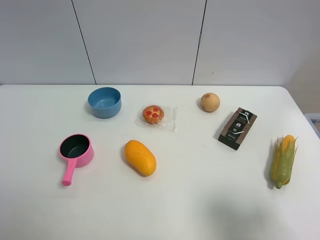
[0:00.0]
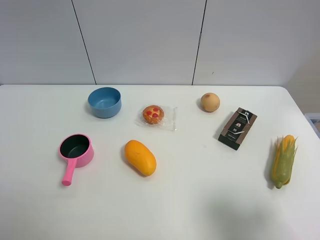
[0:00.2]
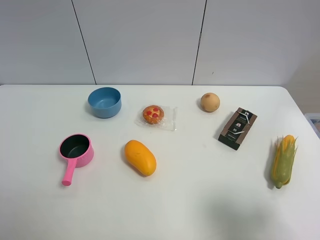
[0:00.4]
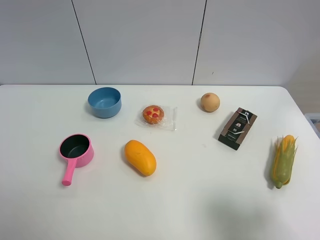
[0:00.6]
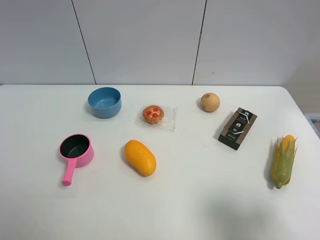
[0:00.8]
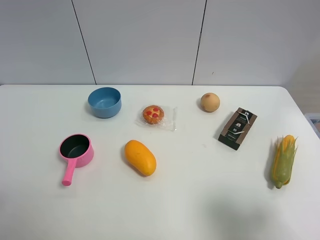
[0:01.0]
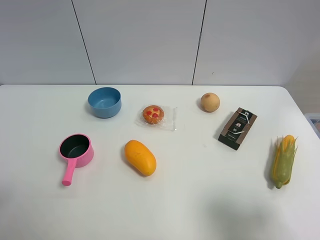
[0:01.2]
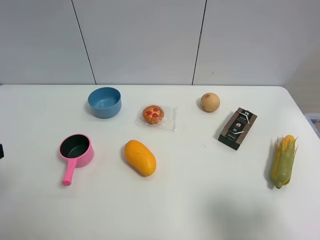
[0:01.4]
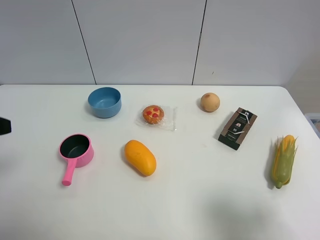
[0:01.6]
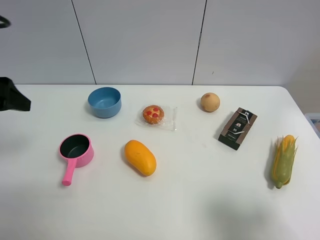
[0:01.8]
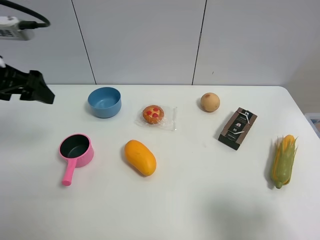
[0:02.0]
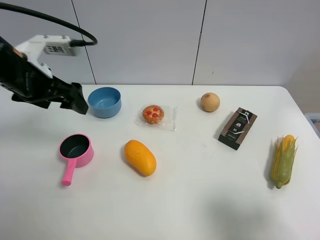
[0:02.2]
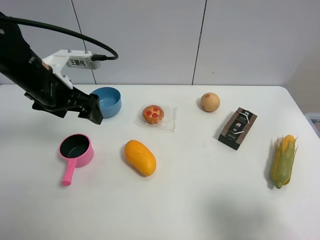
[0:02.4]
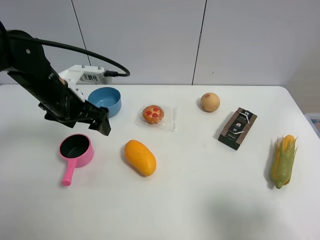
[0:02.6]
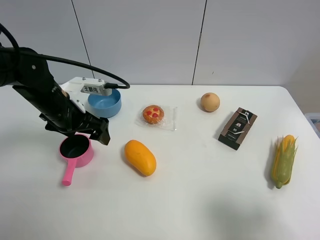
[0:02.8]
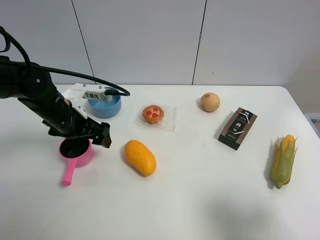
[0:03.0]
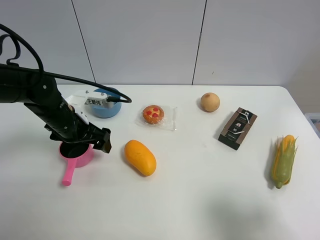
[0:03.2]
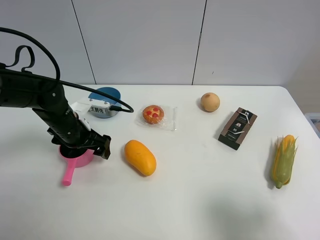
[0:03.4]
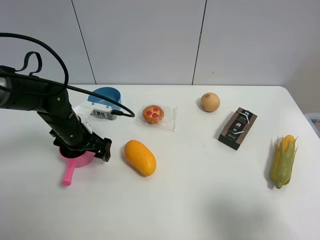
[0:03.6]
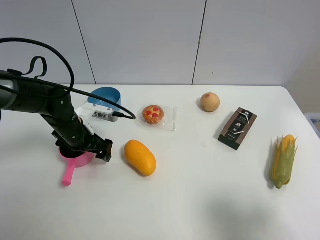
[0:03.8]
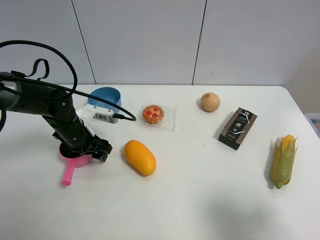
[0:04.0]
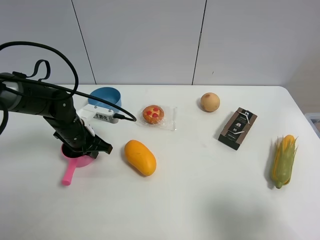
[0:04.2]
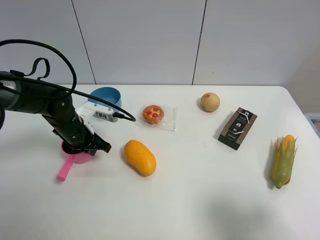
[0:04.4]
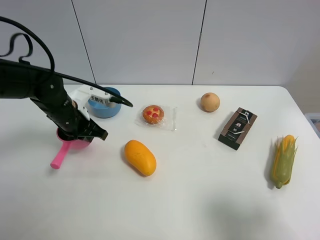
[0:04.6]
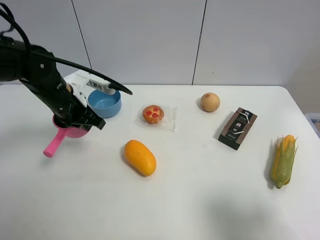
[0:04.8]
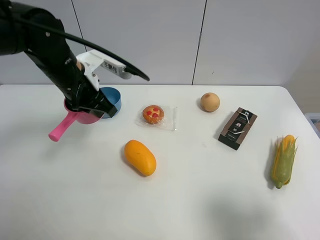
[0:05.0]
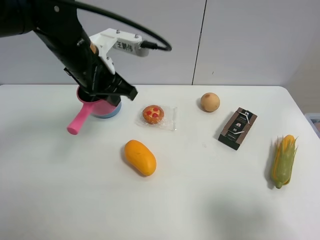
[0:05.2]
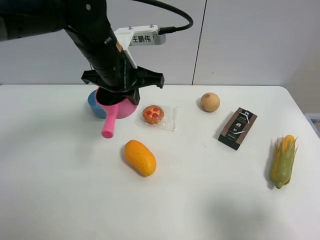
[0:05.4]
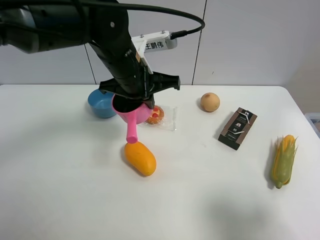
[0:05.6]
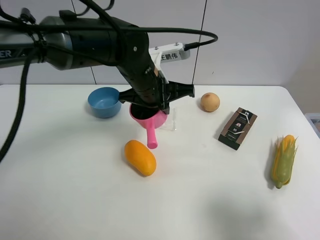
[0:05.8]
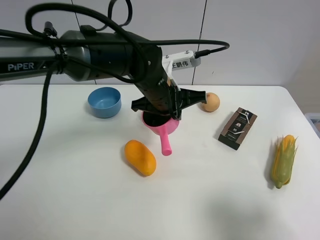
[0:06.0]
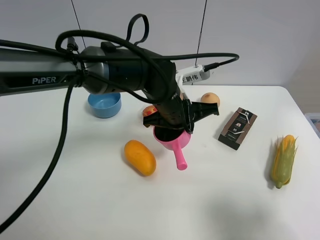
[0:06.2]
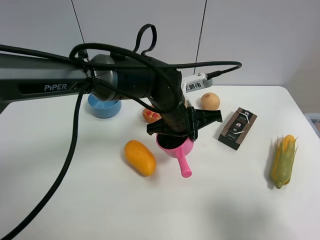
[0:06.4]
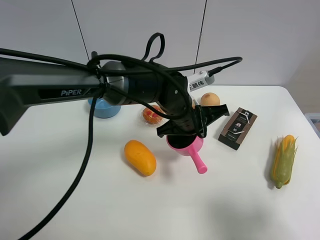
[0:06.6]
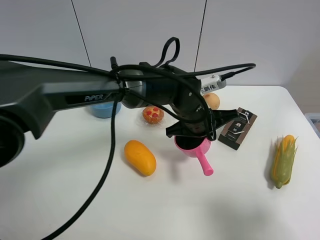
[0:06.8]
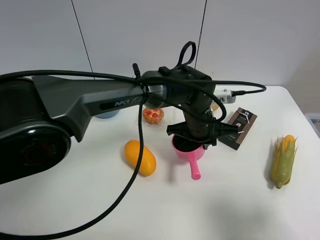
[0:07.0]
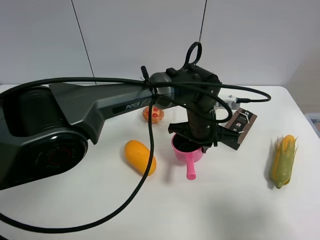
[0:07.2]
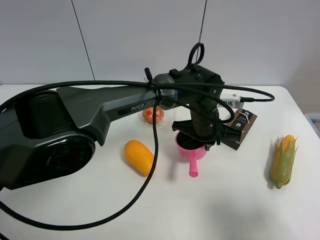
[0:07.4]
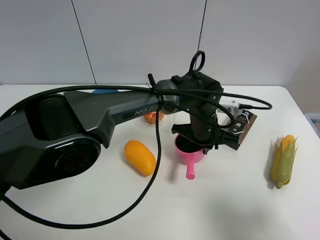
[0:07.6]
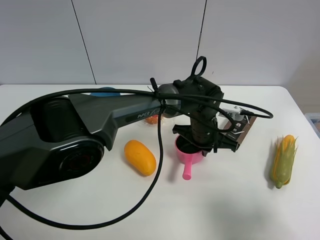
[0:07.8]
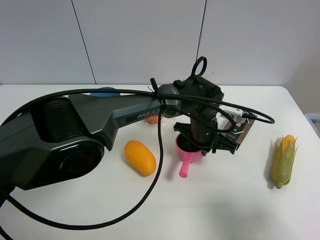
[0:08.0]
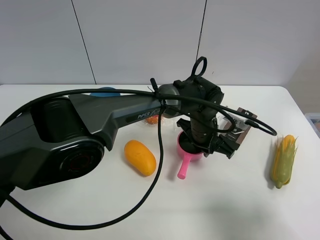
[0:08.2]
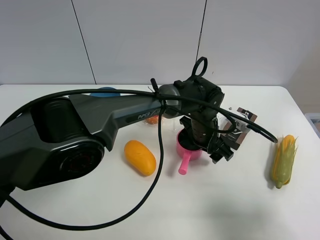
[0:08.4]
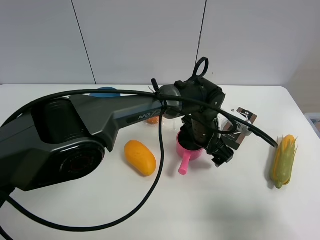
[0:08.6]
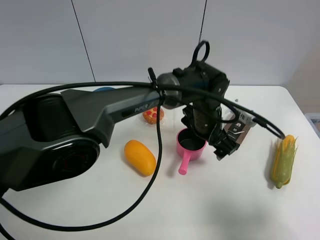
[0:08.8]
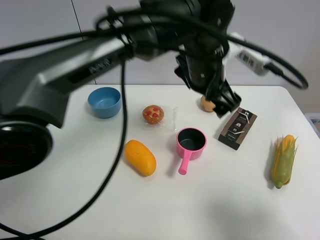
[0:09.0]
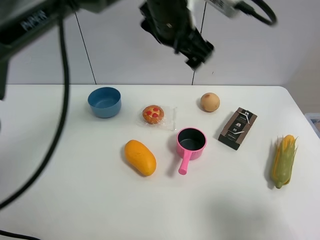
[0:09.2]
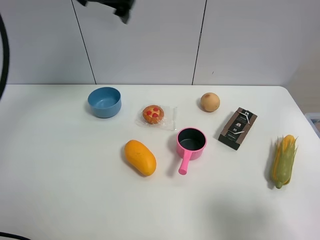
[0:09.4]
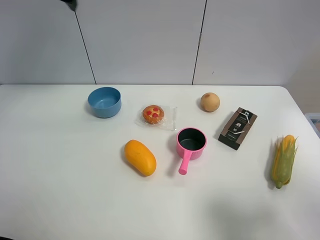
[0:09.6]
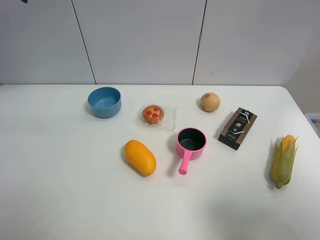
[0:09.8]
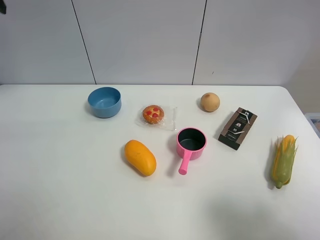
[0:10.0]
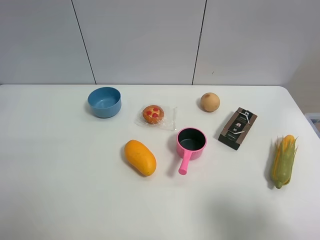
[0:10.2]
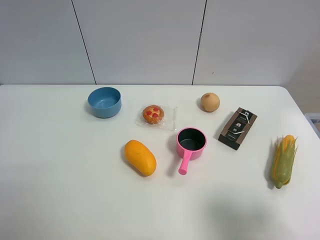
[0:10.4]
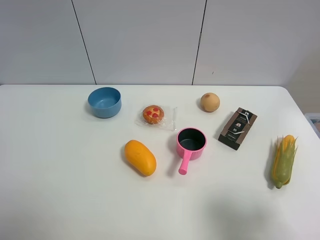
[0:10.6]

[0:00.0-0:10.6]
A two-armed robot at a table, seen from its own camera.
Task of the whole recording: the gripper move the object.
Step, 0:00.0 to 0:04.2: Grasp the pink pot with the left gripper.
Step, 0:04.4 to 0:08.8: Place the pink pot on the table with the left gripper.
0:01.6 to 0:03.0: The left gripper is displaced forward, downward and to the right by roughly 25 cm.
0:03.0 to 0:04.6: The left gripper closes.
0:04.6 to 0:06.0: The left gripper is displaced to the right by approximately 20 cm.
0:06.0 to 0:07.6: The left gripper goes some 15 cm to the right and downward.
0:07.6 to 0:09.0: The left gripper travels upward by some 20 cm, and opens its fingers.
0:09.0 to 0:10.6: The left gripper is displaced to the left and backward by some 50 cm.

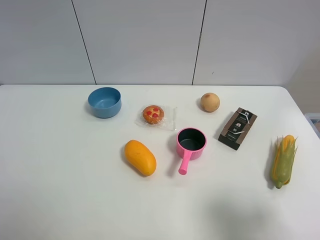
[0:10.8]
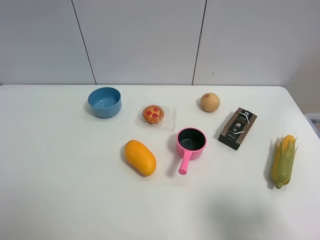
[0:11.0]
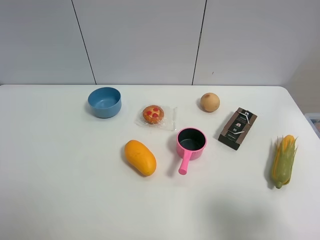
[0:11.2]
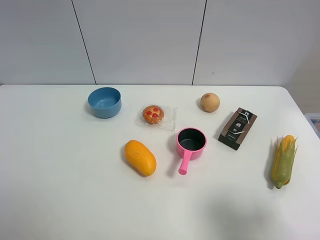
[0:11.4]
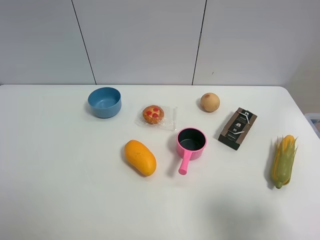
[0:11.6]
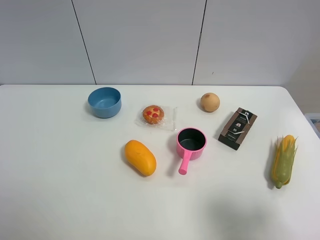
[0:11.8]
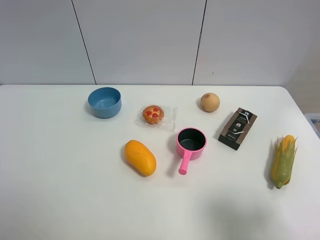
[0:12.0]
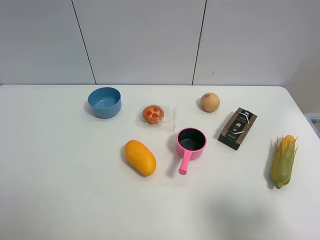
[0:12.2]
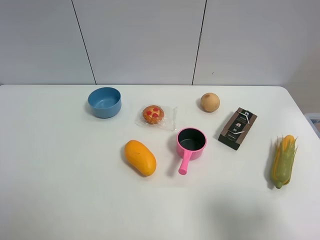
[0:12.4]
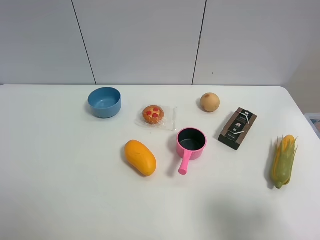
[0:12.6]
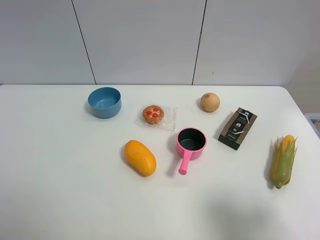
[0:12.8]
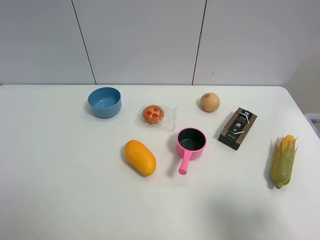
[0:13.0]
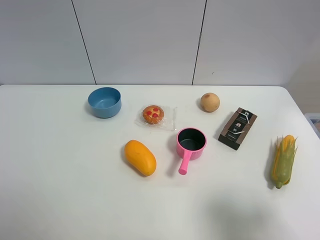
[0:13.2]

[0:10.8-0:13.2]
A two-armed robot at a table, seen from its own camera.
Task of the whole recording: the gripper move the object.
0:12.0 to 0:13.2: Neither gripper changes place.

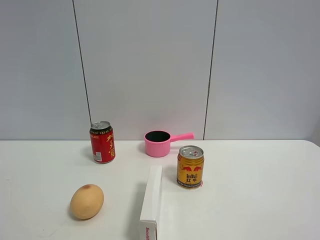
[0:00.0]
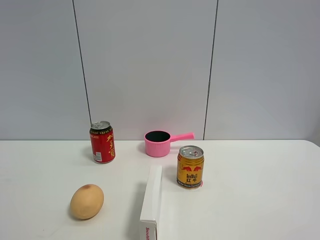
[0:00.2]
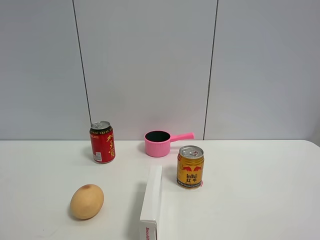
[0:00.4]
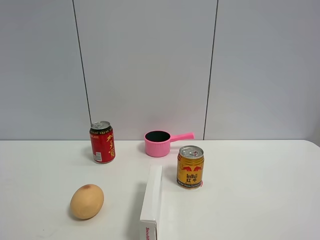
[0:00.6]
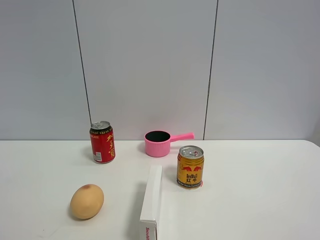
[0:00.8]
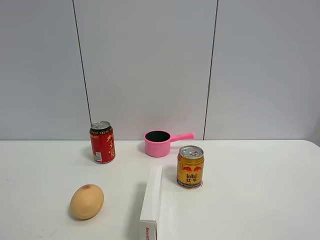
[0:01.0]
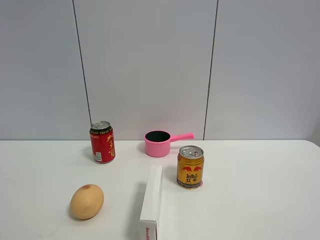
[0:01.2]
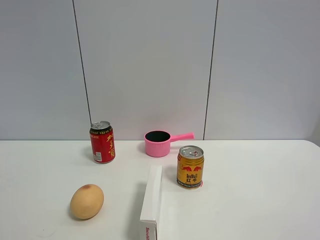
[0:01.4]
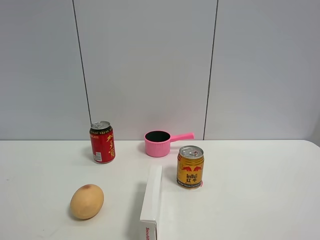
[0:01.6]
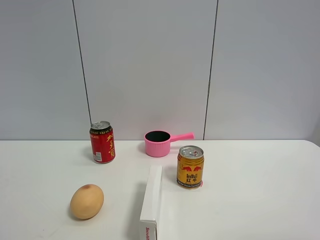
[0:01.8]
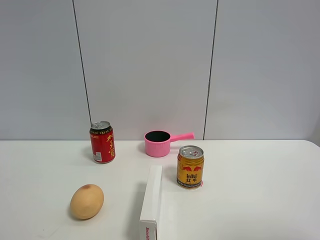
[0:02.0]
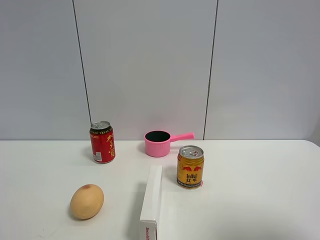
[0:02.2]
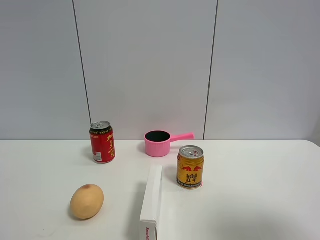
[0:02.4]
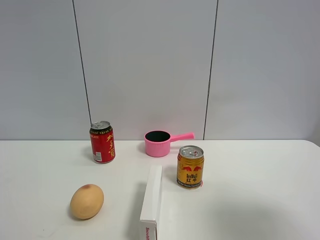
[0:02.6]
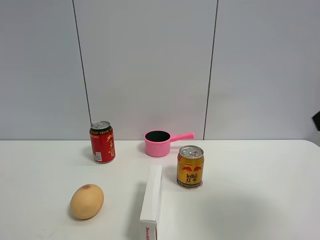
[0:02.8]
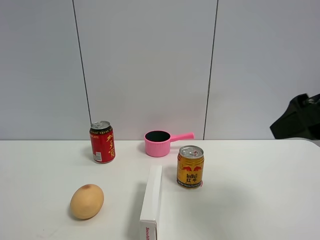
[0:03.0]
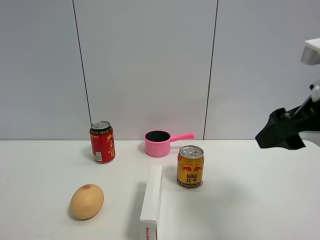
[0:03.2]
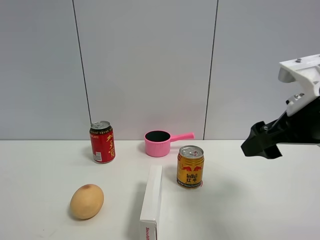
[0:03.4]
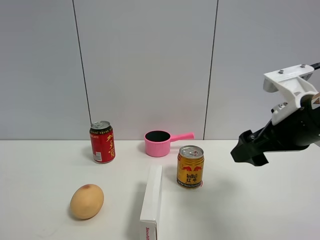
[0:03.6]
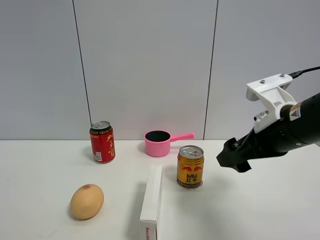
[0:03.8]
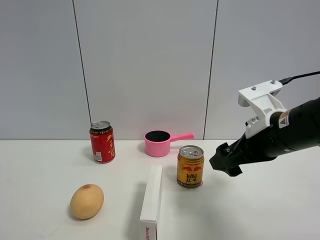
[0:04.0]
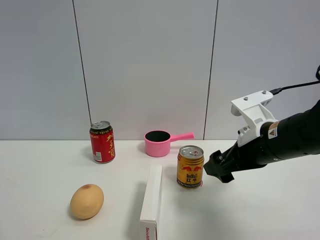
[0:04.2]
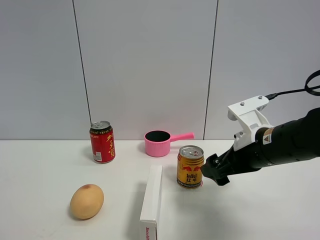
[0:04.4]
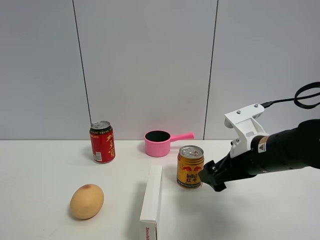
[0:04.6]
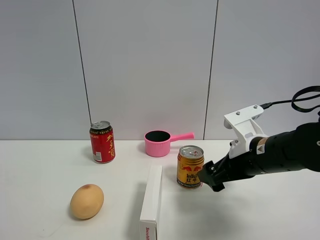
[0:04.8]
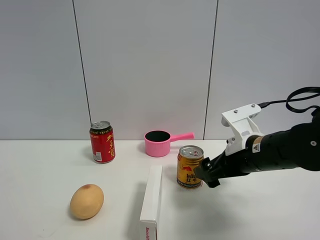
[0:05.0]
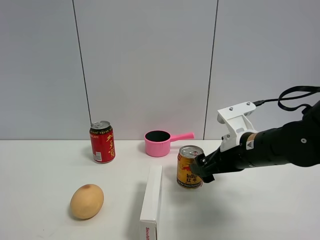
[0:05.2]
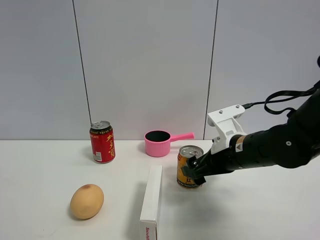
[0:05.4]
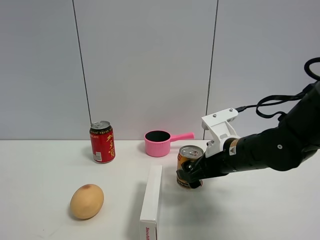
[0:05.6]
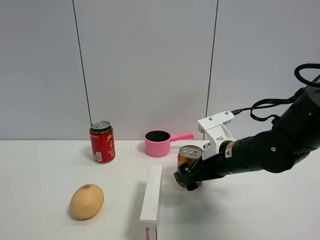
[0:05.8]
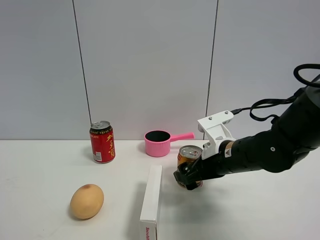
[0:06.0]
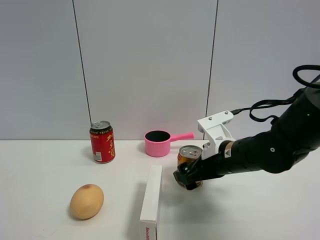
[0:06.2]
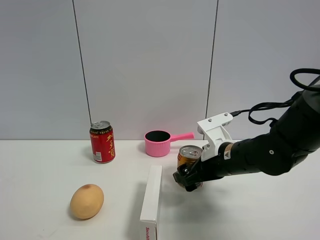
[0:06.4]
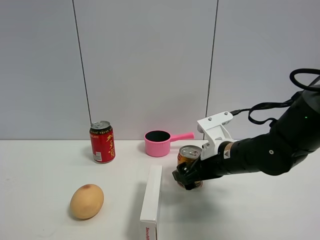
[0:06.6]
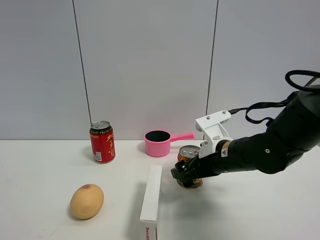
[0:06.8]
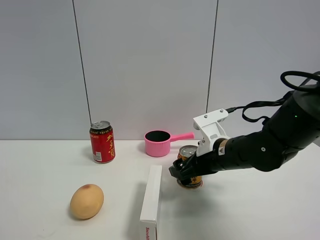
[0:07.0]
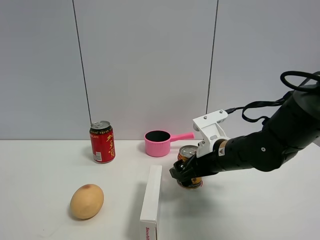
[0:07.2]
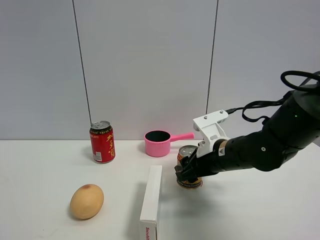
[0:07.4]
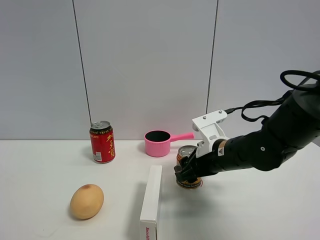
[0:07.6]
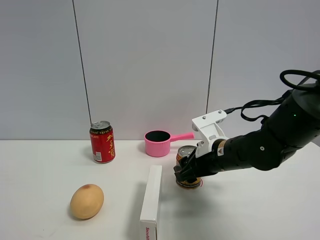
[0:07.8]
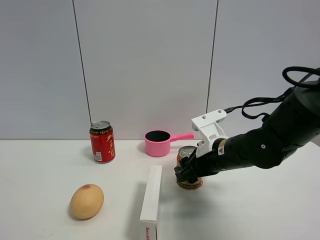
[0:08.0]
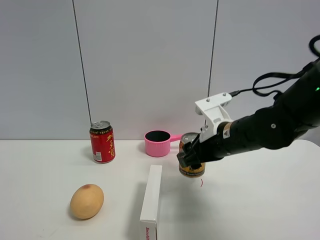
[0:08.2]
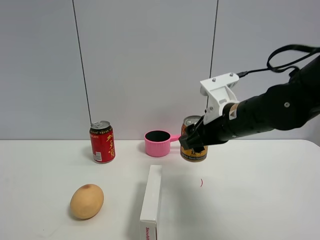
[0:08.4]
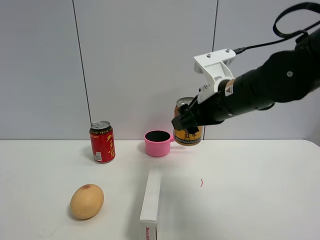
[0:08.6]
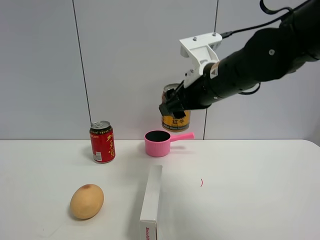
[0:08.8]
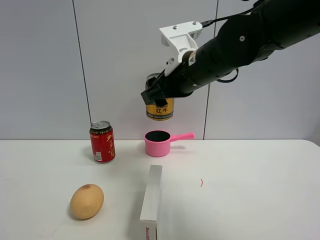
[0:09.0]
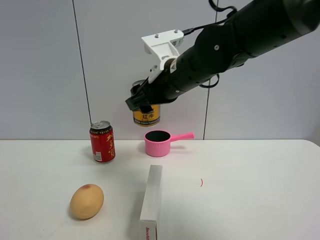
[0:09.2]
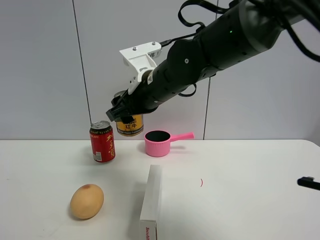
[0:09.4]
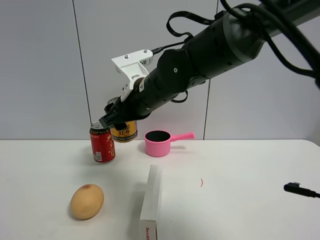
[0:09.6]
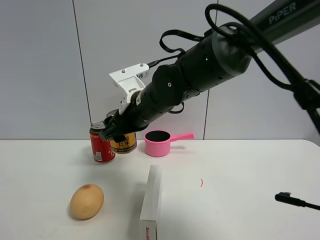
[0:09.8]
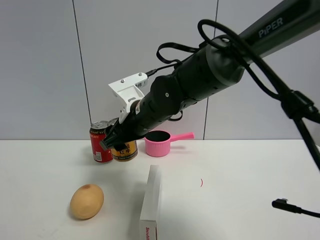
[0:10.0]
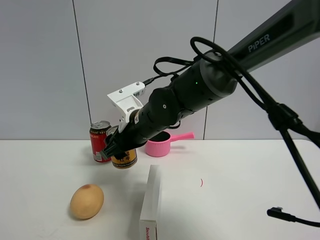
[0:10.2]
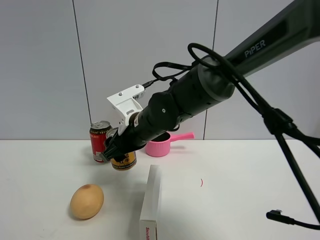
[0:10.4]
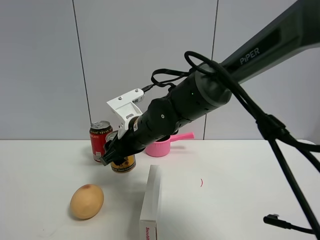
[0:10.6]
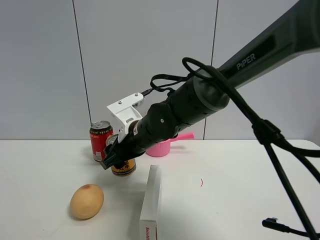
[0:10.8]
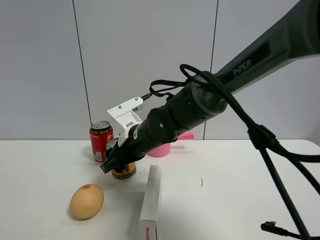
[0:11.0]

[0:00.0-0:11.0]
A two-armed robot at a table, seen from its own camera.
Task of the whole recording: the gripper move the object.
Step, 0:00.0 to 0:07.6: Grasp the red bull with the right gripper.
0:01.6 to 0:03.2: The right gripper moves forward, some 20 cm.
0:03.2 to 0:04.8: The right gripper shifts some 15 cm downward, forward and to the left.
0:04.8 to 0:06.2: The right gripper shifts by some 5 cm.
0:06.2 to 0:07.8: The right gripper closes its fingers.
0:07.8 to 0:09.4: The right gripper moves to the left and upward, roughly 20 cm.
0:09.4 to 0:11.0: The right gripper goes approximately 10 cm downward.
